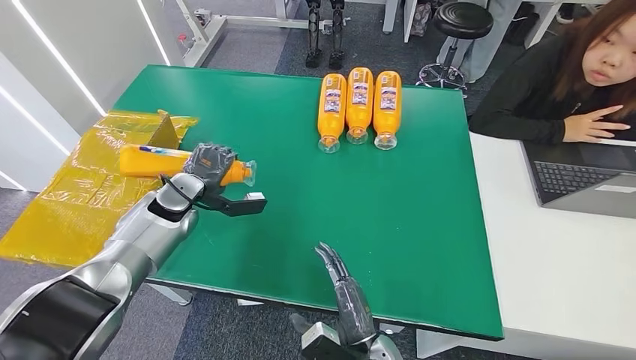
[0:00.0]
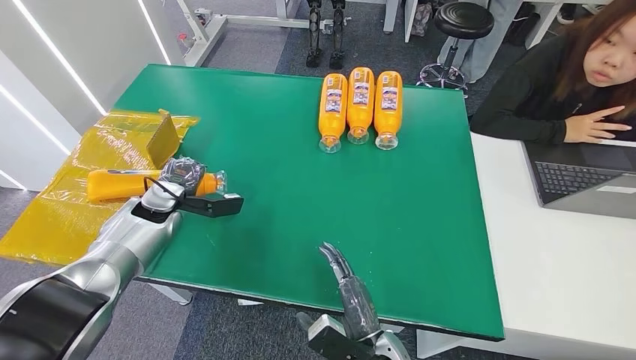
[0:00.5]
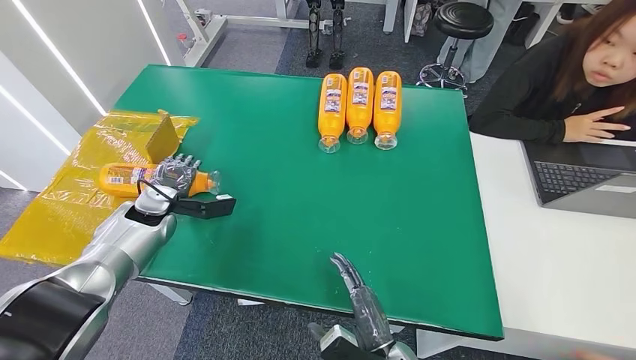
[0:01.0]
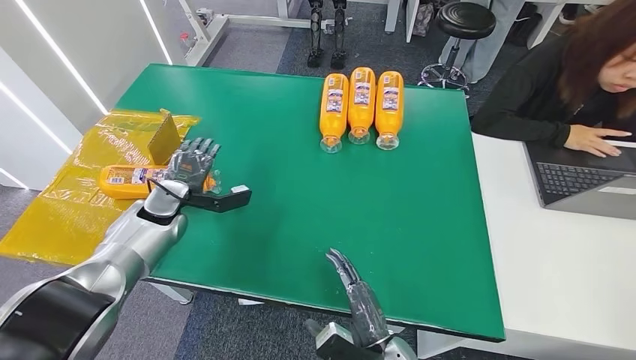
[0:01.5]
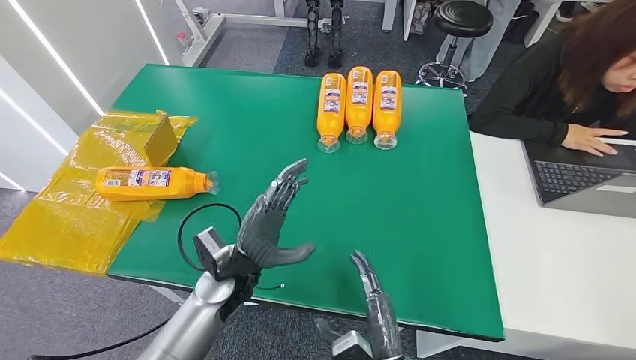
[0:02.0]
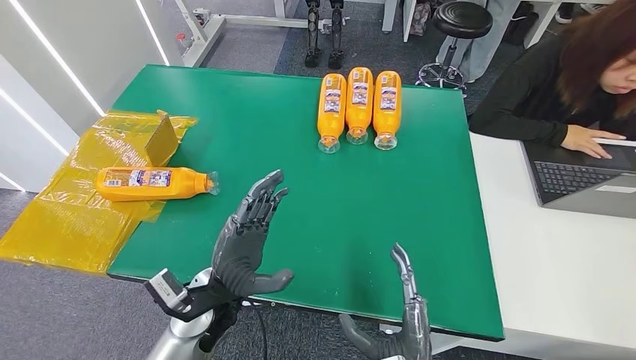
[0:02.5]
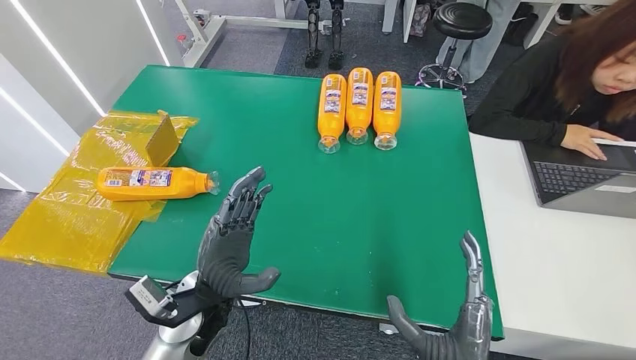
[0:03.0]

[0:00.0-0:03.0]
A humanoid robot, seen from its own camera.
Step, 0:00.0 to 0:03.0: Turn the bottle to the front side.
